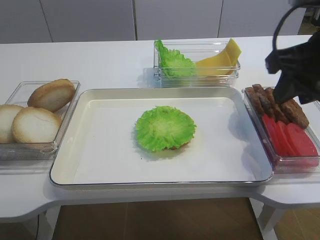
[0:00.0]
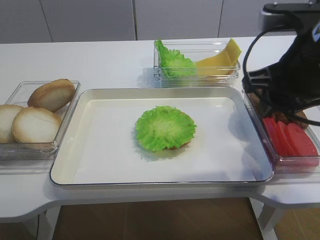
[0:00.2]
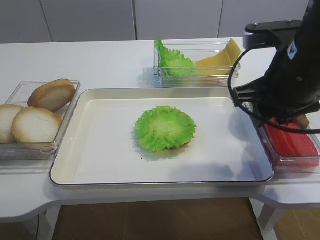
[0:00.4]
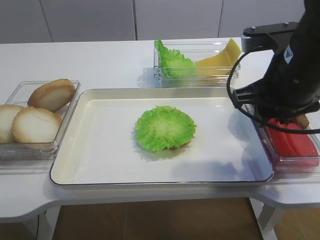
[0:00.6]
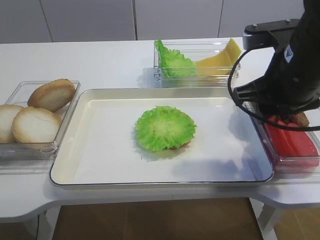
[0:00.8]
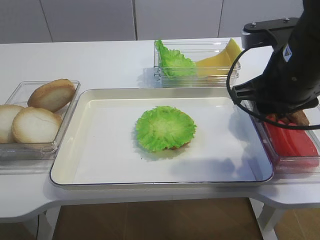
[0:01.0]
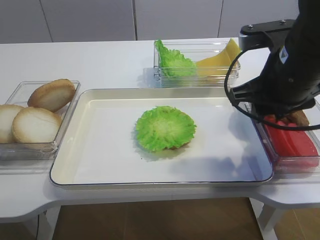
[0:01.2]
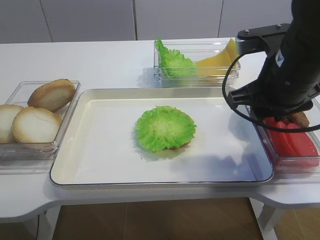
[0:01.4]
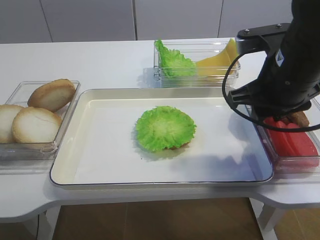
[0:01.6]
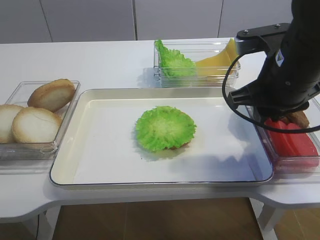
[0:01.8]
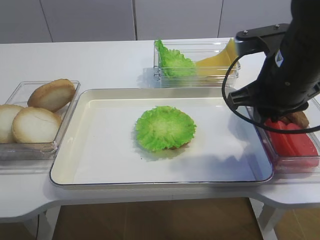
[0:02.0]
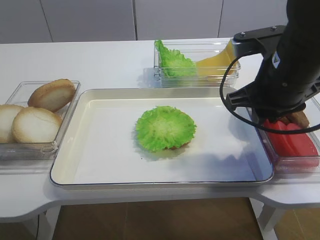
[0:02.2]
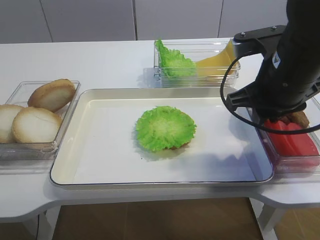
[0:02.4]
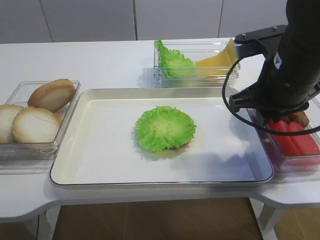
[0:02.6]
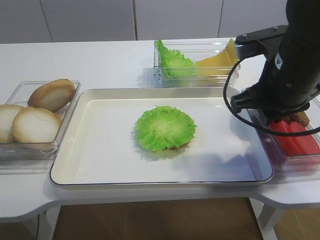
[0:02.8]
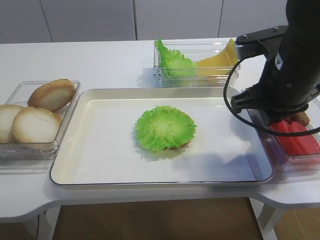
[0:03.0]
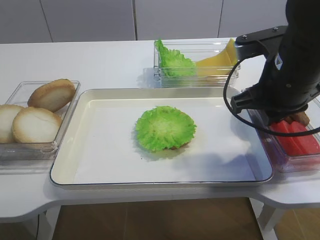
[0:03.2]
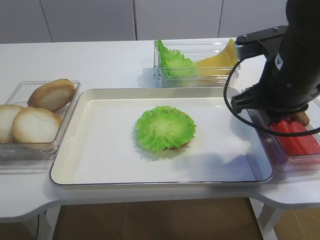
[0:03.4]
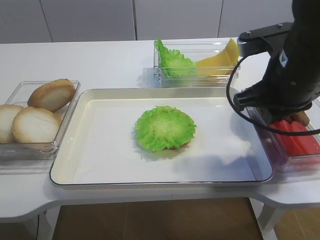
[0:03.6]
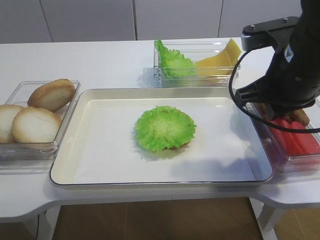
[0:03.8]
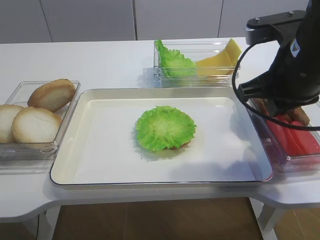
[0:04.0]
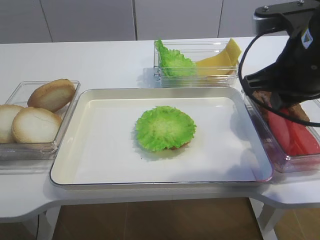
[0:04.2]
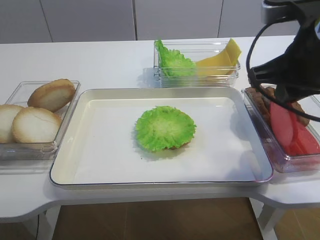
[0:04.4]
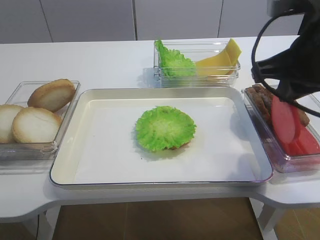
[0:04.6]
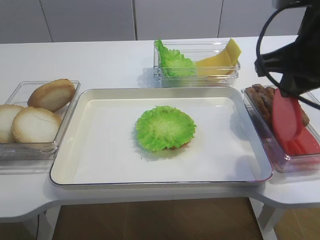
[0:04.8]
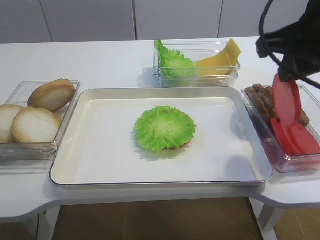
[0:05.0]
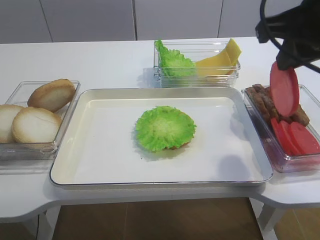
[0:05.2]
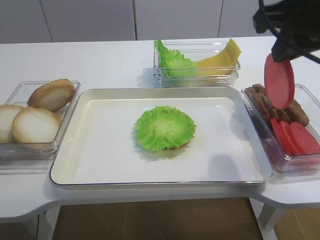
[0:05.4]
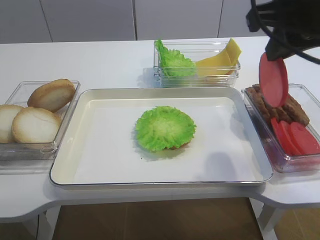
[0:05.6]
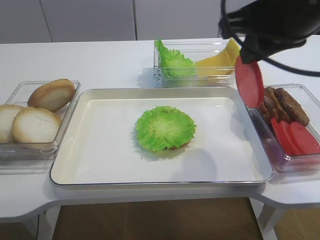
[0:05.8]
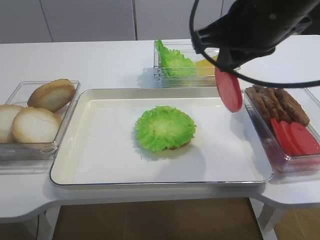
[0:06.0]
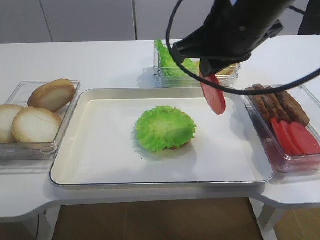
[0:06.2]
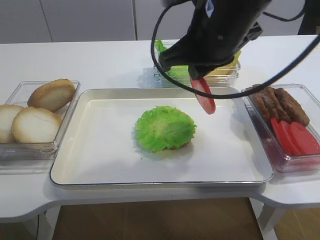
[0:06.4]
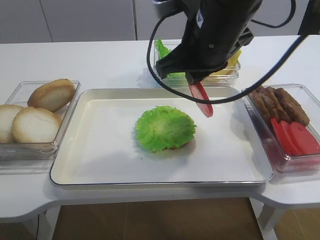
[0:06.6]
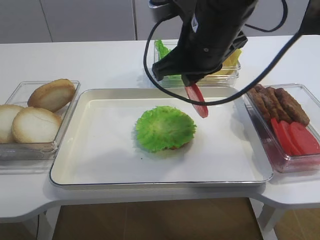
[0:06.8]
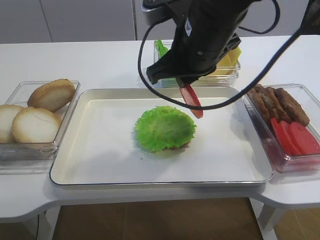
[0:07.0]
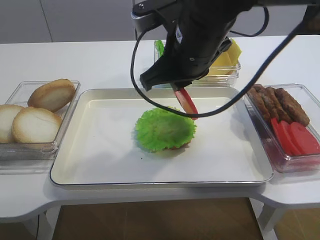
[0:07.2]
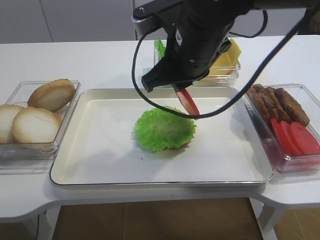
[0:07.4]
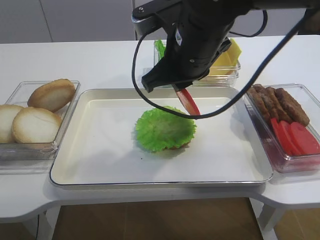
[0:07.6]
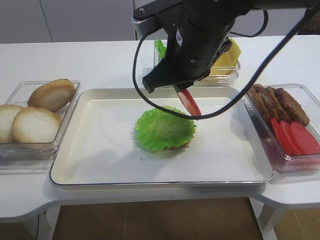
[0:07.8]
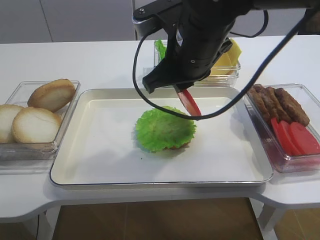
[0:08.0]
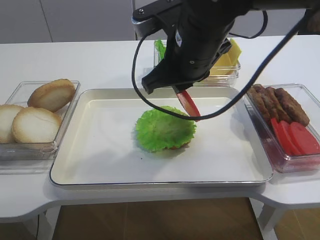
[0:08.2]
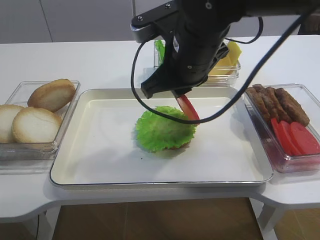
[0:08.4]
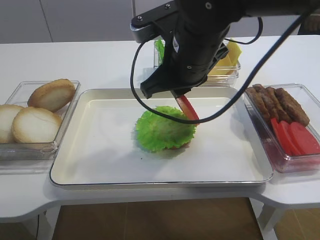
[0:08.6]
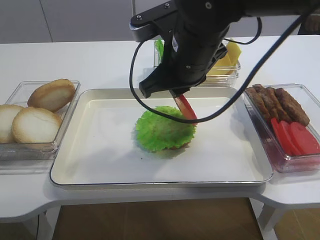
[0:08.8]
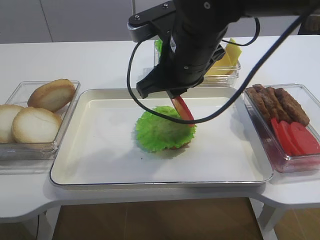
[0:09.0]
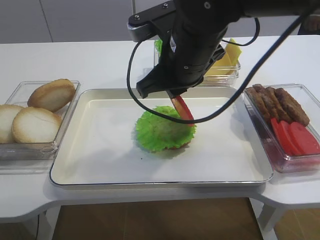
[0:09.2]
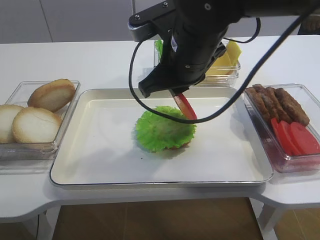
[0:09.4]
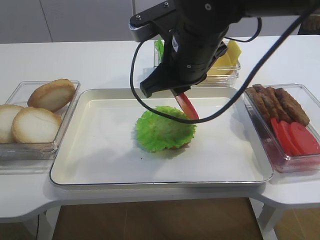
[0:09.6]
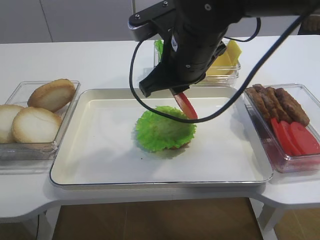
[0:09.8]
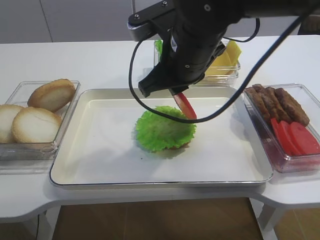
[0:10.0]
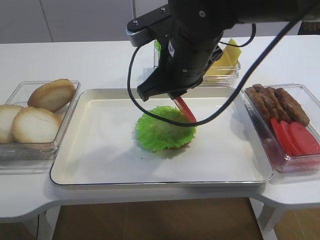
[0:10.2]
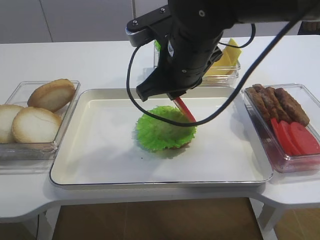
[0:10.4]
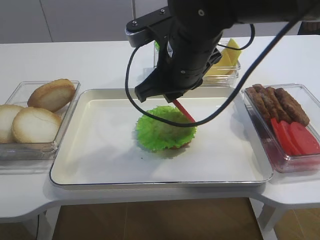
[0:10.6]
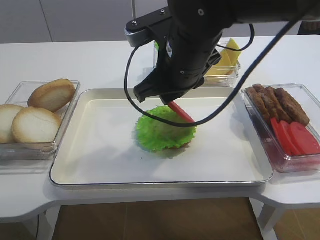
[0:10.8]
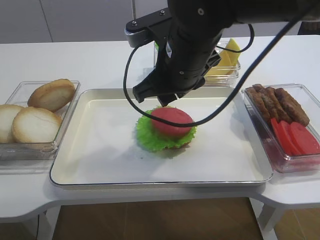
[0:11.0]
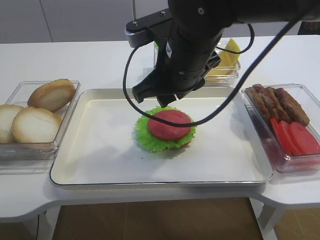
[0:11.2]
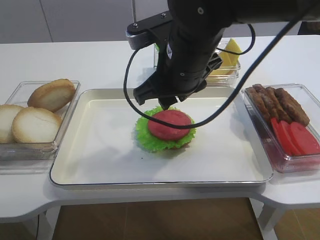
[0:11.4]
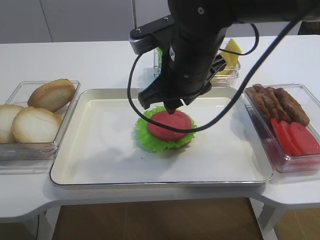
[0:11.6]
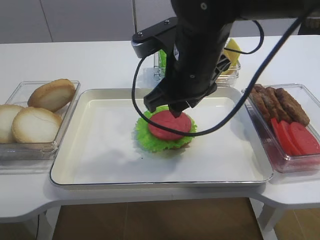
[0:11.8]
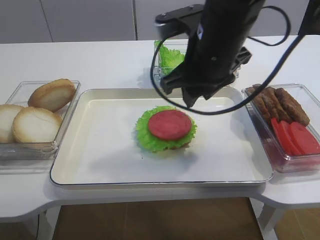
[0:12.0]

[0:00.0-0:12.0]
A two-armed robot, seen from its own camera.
Step, 0:00.0 to 0:04.2: Pick up the tomato slice with the right gripper.
Step, 0:04.4 to 0:11.6: Place the tomato slice on the lettuce leaf with the right gripper.
0:00.0 to 0:01.6: The right gripper travels downward by roughly 5 cm.
0:01.6 to 0:03.0: The right gripper closes its fingers.
0:03.0 to 0:04.4: The right gripper moves about 5 cm.
0:04.4 to 0:06.0: The right gripper is displaced to the left by about 5 cm.
0:06.0 to 0:07.6: The right gripper travels to the left and downward by approximately 10 cm.
0:07.6 to 0:09.0: Neither gripper changes place.
0:09.0 to 0:10.4: Both grippers stay put.
0:10.4 to 0:12.0: The right gripper opens.

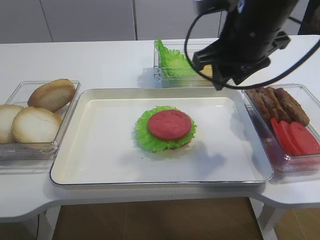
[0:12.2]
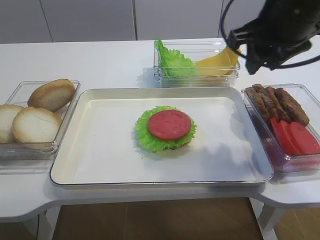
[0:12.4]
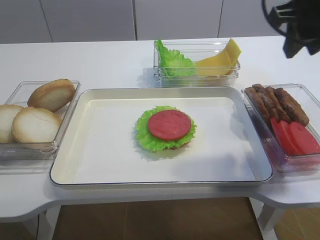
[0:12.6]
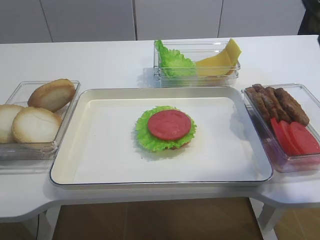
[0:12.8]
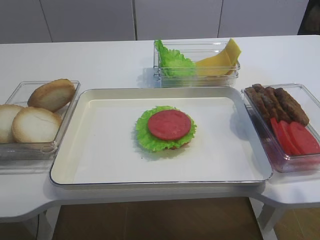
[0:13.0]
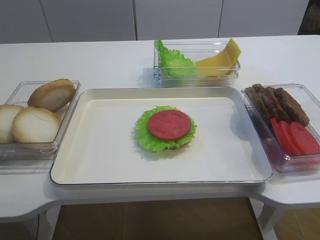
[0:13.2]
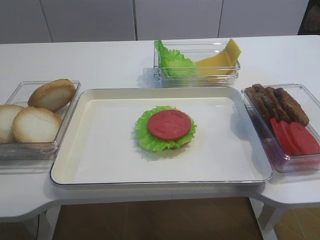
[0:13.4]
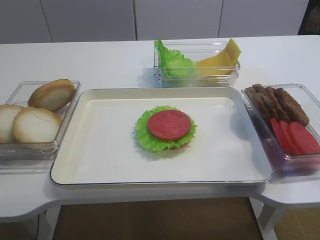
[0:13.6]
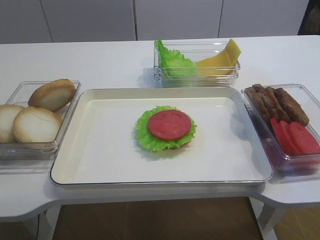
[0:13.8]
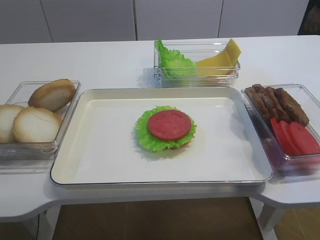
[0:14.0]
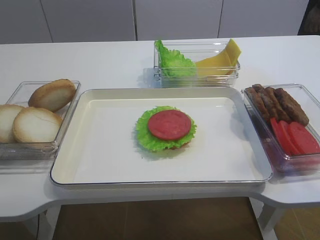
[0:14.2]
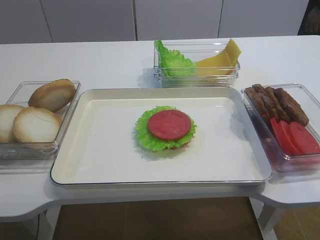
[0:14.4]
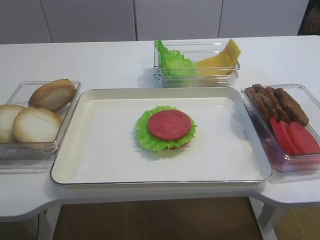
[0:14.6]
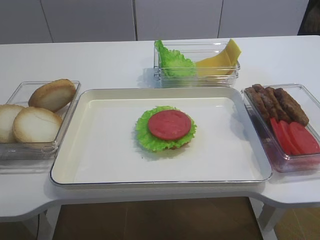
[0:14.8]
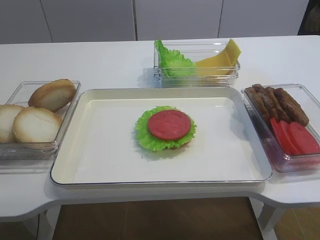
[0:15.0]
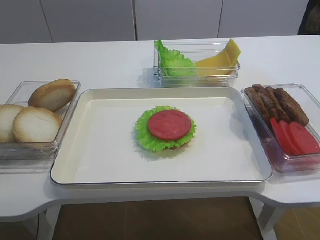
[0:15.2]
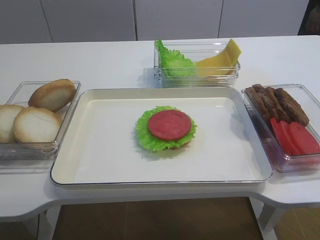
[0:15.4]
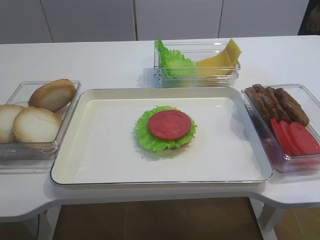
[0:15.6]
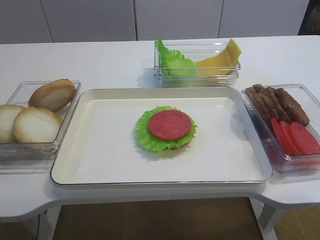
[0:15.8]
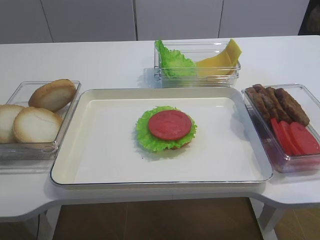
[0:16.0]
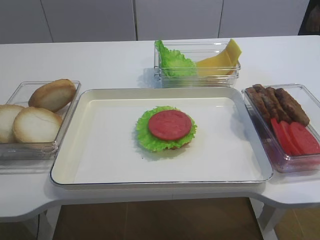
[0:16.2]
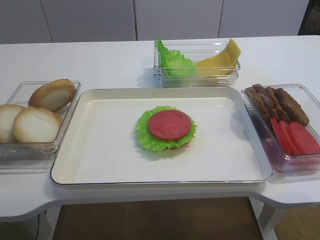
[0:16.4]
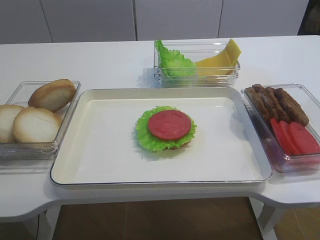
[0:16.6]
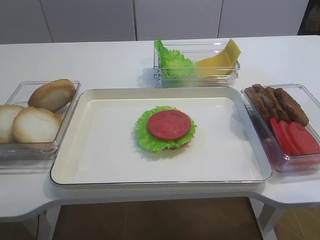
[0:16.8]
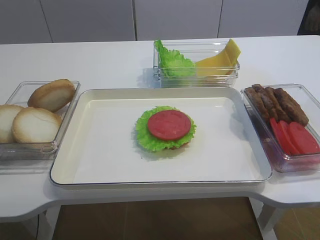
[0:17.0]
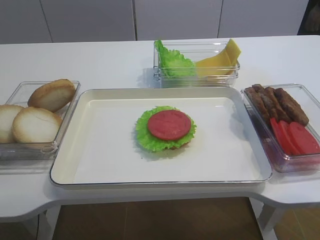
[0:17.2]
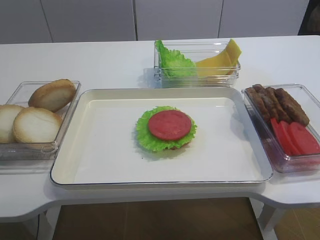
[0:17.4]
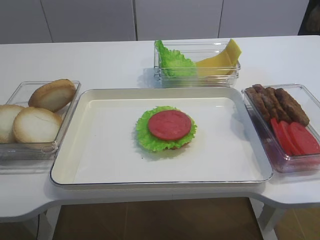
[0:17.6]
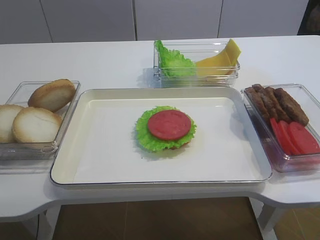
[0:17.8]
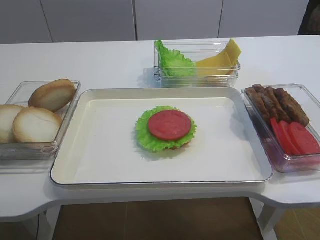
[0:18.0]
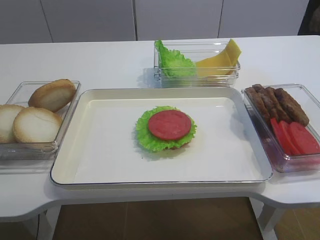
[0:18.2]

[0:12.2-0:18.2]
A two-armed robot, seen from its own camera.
0:12.2 to 0:13.8: The right gripper travels backward and to the right by some 30 cm.
0:13.8 to 0:15.2: The right gripper is displaced downward and backward by approximately 10 cm.

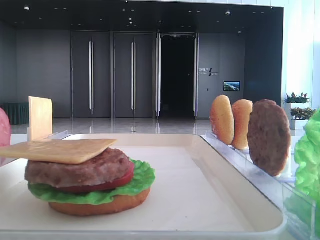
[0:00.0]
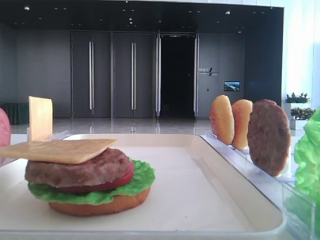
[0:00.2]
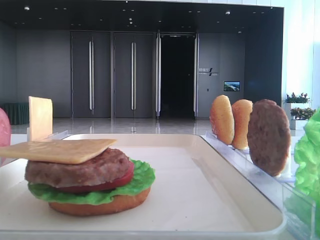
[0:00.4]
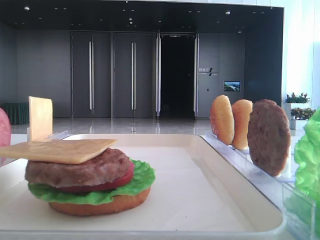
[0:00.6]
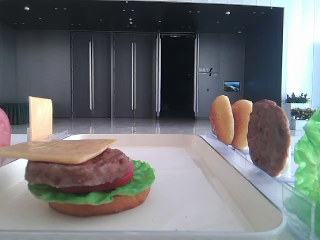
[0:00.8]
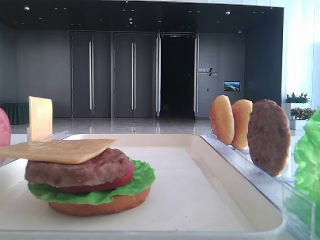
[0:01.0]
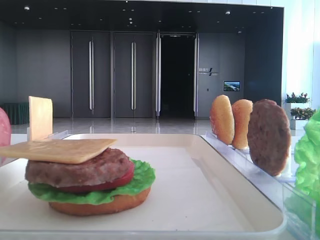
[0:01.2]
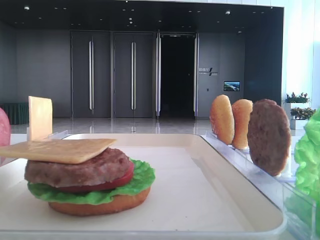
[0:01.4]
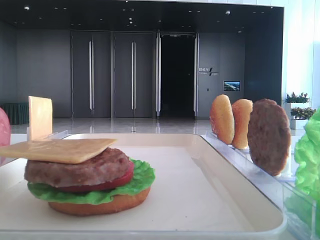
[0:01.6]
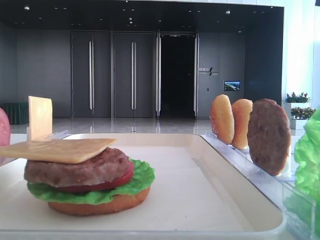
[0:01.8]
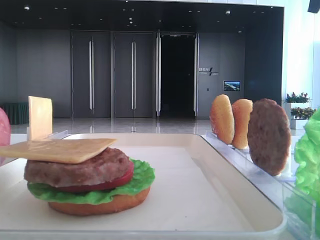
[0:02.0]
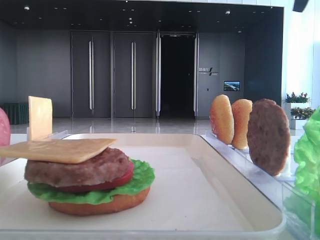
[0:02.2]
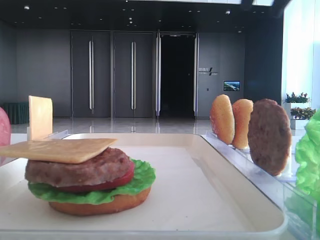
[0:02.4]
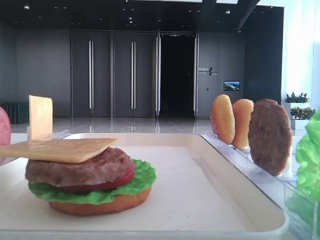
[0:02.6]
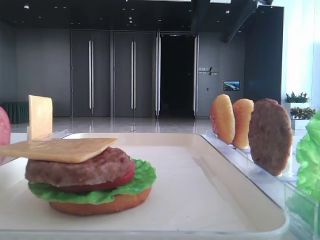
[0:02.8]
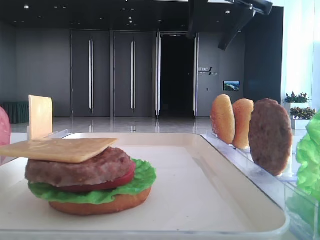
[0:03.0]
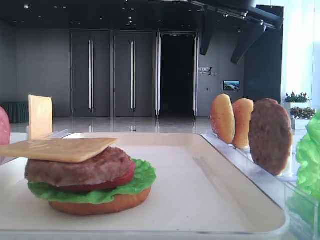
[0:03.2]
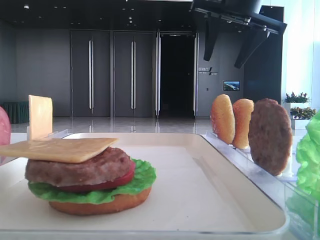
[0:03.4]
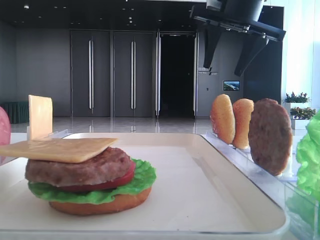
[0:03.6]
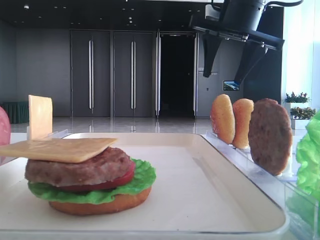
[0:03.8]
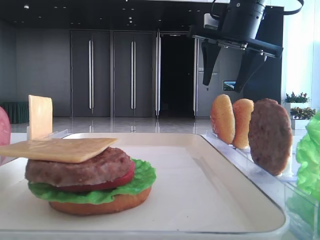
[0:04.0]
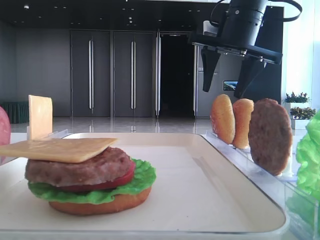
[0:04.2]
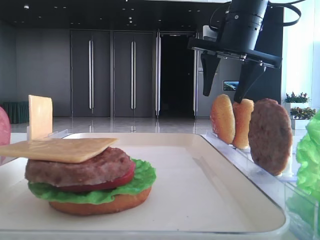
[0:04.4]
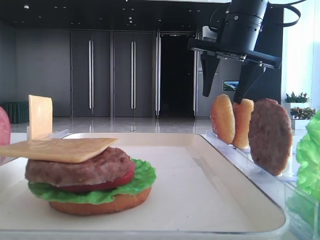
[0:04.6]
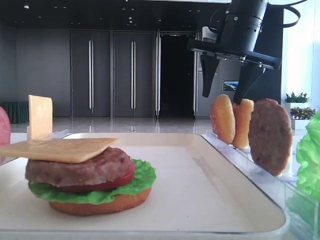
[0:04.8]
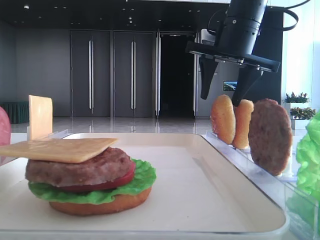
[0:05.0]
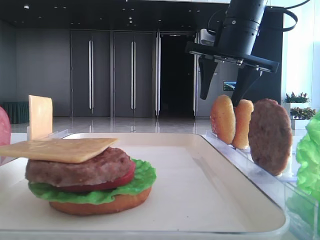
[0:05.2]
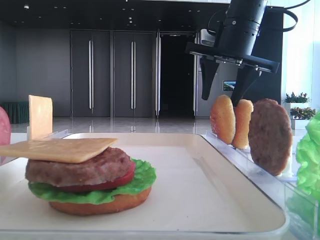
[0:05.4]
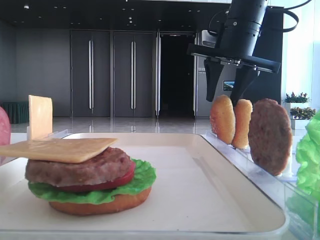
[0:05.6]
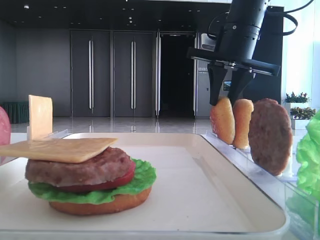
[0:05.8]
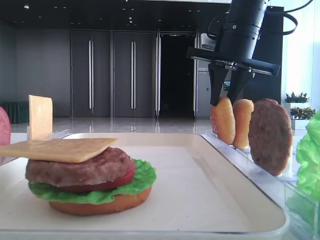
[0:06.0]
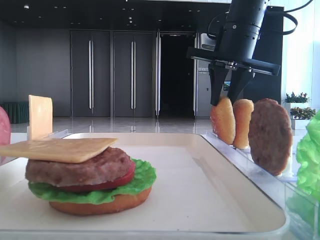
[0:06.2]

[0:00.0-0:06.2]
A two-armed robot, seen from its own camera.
0:01.6 to 0:03.2: The right gripper is displaced to the left, forward and downward by roughly 20 cm.
0:03.2 to 0:04.6: The right gripper heads downward, covering roughly 5 cm.
0:04.6 to 0:06.2: The right gripper closes its fingers.
